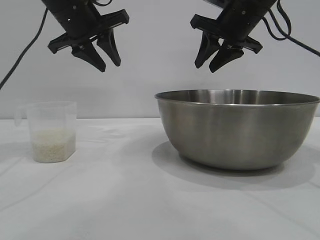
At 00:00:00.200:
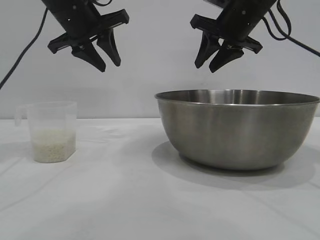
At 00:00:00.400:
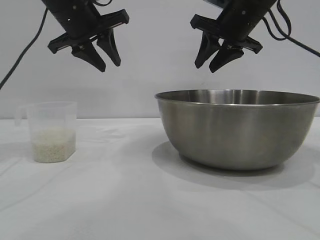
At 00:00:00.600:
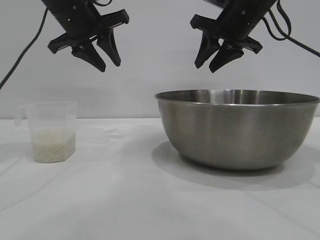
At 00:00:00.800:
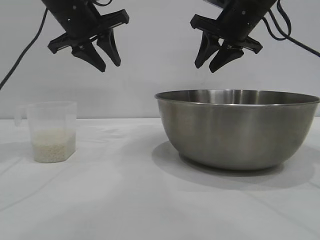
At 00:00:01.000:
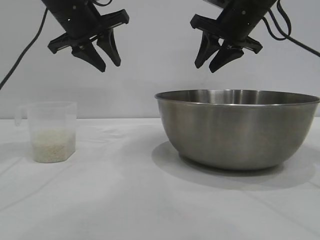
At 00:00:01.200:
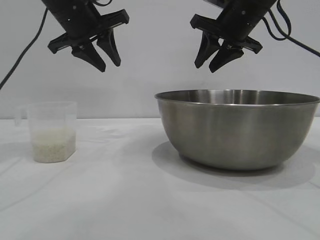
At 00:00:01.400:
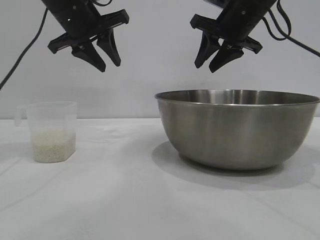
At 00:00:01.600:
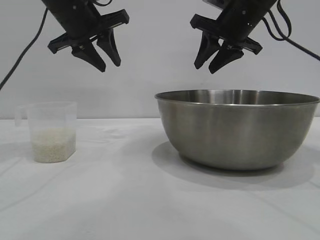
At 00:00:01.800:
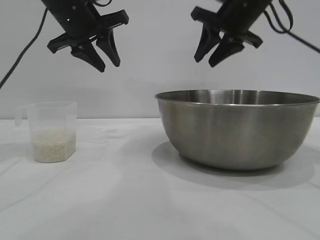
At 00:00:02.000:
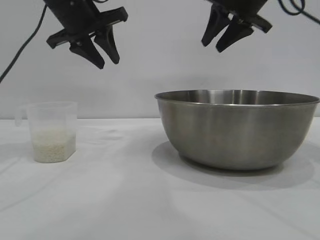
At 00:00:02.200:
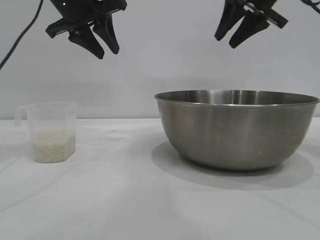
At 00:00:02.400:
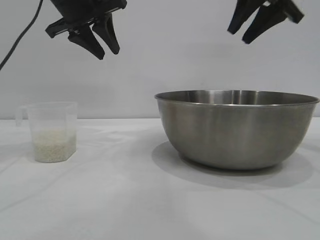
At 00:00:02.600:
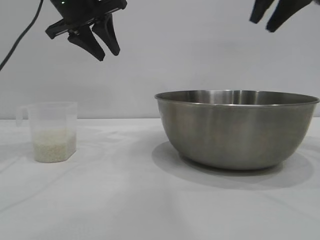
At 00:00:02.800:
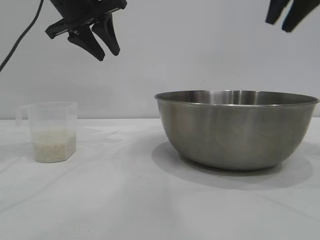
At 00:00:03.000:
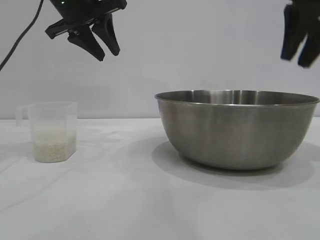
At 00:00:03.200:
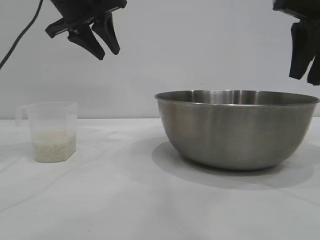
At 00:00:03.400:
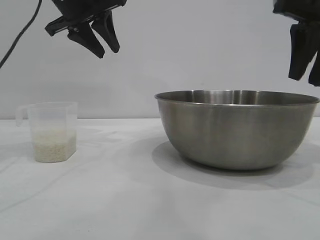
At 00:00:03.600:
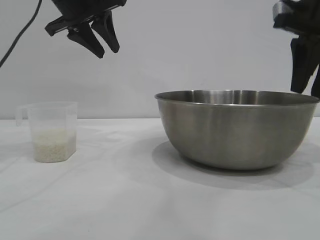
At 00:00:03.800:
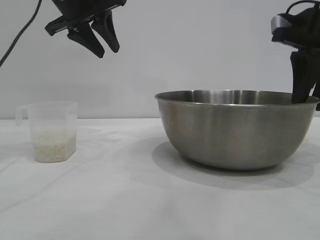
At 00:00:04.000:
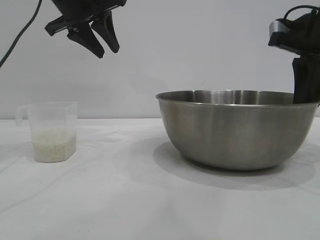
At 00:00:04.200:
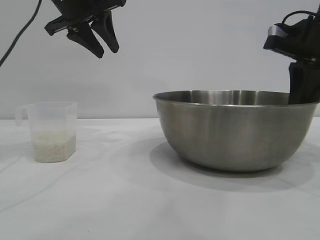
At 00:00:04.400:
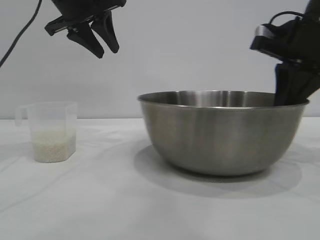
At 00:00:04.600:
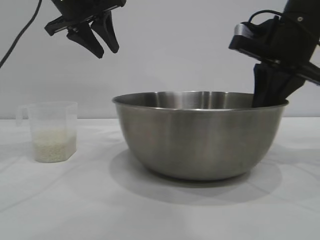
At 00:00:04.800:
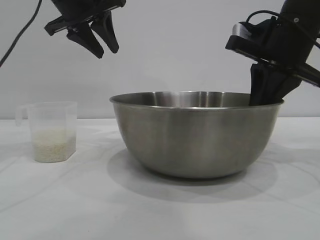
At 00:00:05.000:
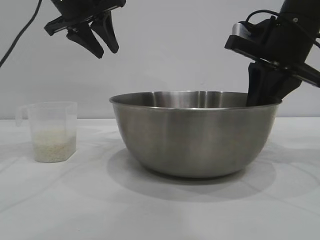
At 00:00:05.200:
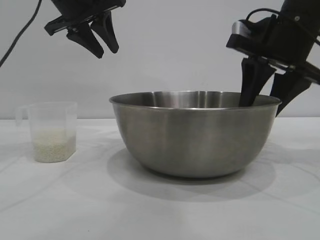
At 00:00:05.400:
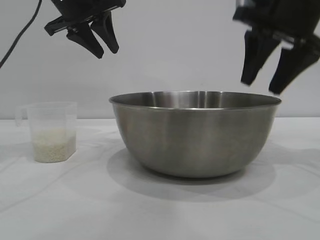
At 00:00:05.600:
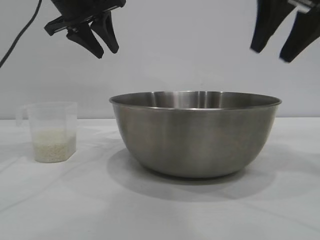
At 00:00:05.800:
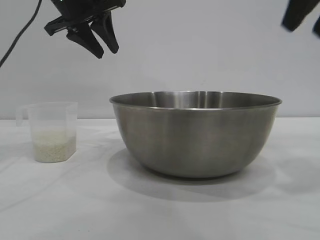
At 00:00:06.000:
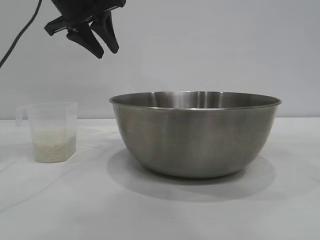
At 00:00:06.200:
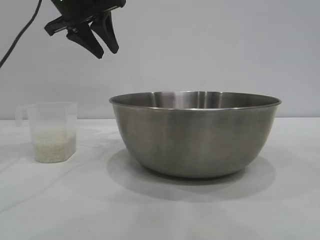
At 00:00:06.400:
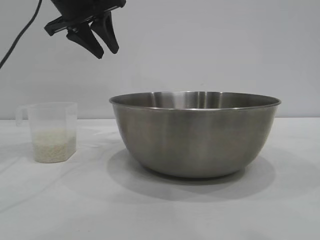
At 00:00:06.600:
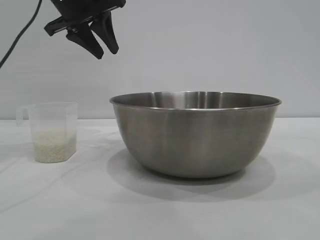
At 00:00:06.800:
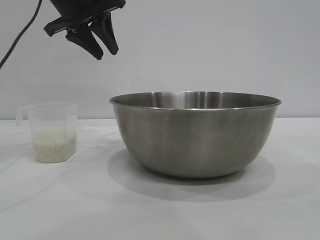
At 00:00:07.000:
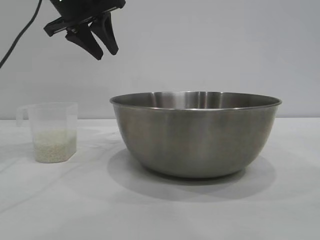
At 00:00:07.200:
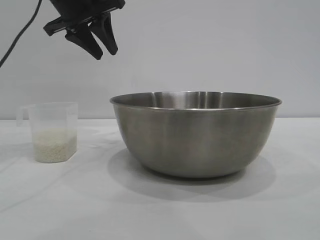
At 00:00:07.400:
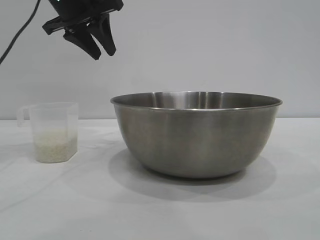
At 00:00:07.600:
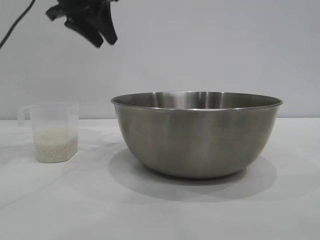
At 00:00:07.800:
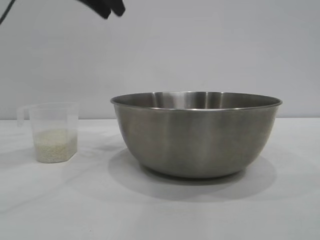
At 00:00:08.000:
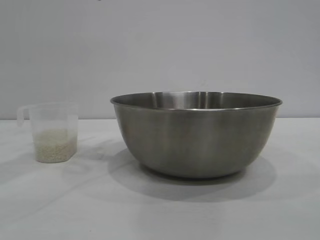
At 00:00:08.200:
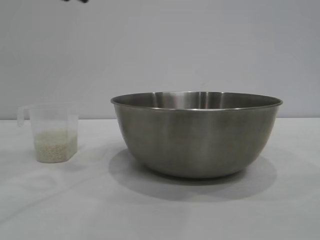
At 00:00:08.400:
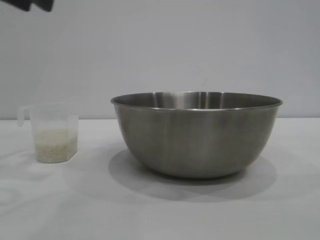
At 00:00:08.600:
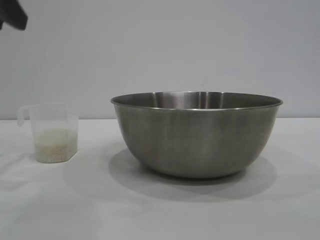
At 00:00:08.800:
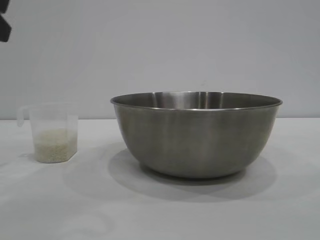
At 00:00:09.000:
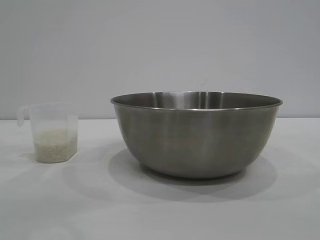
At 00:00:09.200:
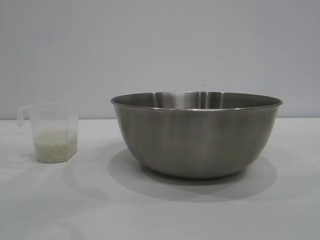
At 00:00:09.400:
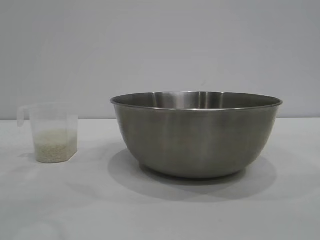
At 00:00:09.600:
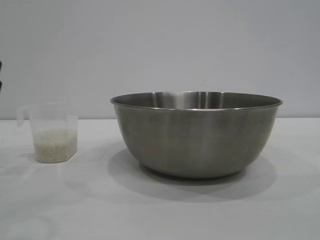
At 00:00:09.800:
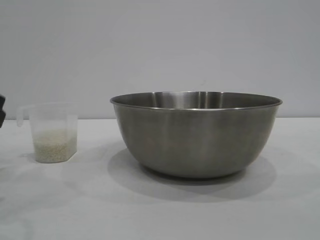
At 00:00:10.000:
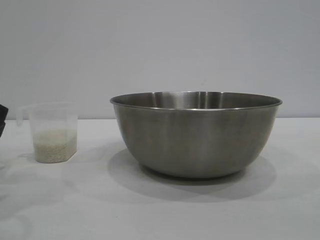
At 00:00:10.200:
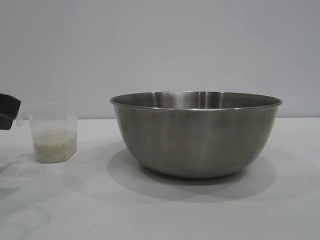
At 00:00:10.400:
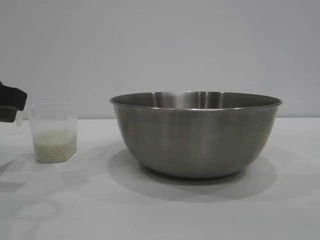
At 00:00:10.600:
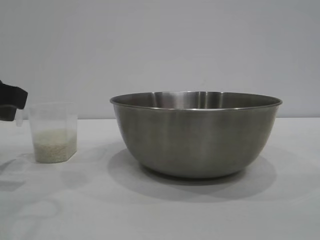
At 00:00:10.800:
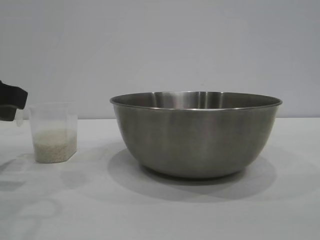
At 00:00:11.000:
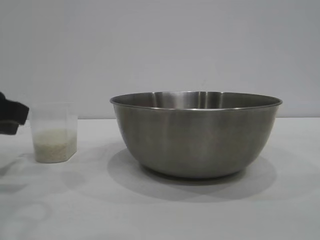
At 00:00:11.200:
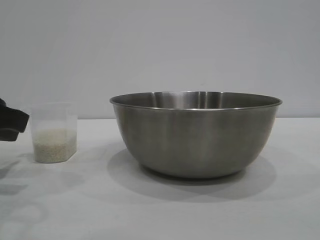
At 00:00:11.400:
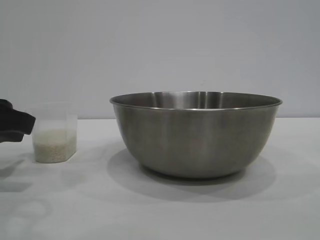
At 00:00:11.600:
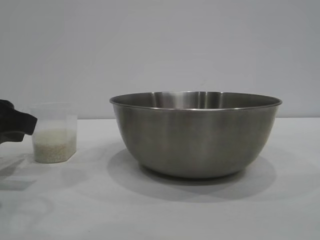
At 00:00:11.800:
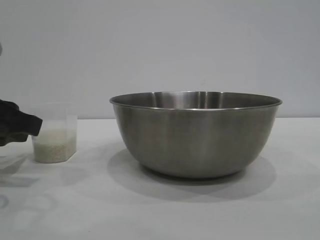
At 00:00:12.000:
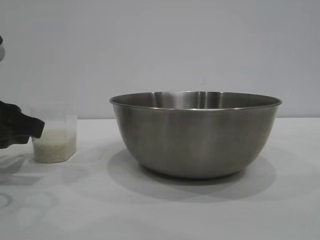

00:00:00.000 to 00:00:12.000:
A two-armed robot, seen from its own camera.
Task of the whole recording: the right gripper grasp the rice container and place it in the center of the table, the left gripper grasp the rice scoop and pour the rice into the rice container.
Step, 00:00:00.000 to 00:00:05.400: Move the bowl to the center of view with the right gripper.

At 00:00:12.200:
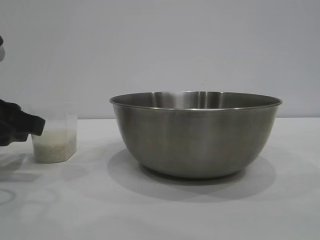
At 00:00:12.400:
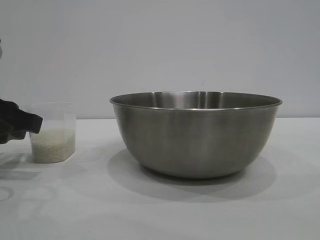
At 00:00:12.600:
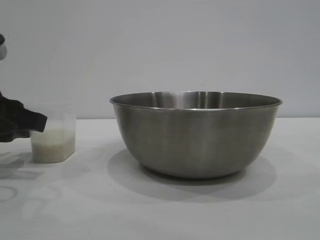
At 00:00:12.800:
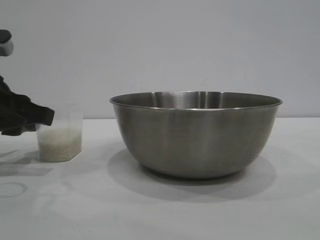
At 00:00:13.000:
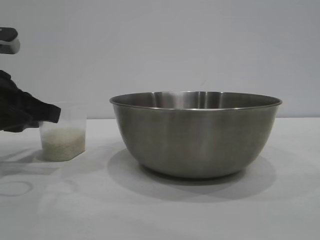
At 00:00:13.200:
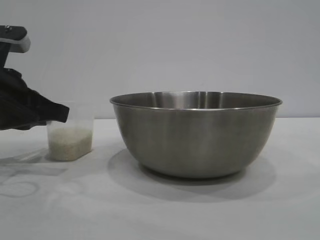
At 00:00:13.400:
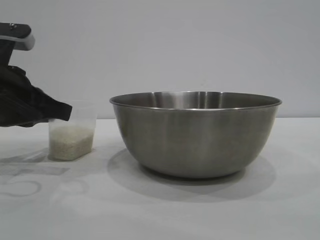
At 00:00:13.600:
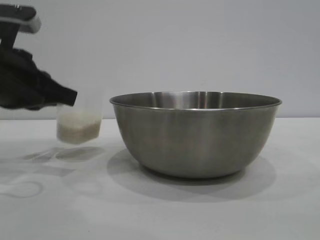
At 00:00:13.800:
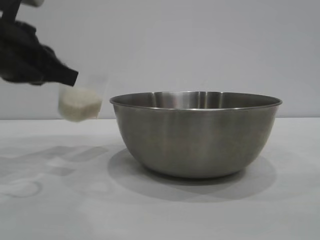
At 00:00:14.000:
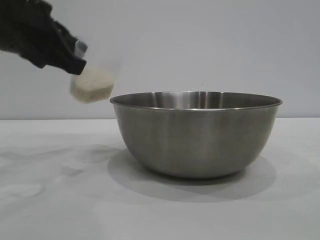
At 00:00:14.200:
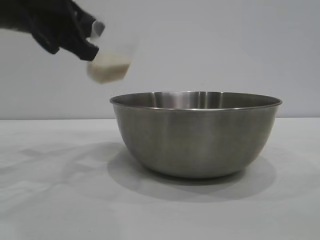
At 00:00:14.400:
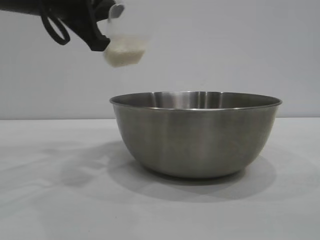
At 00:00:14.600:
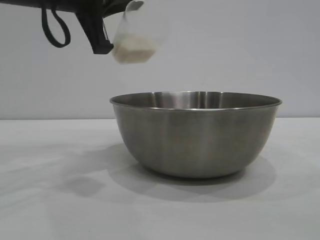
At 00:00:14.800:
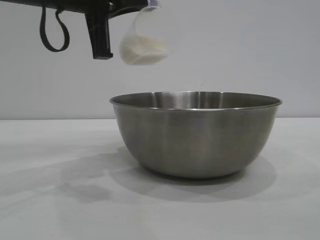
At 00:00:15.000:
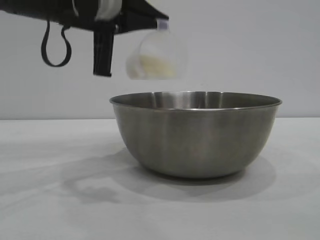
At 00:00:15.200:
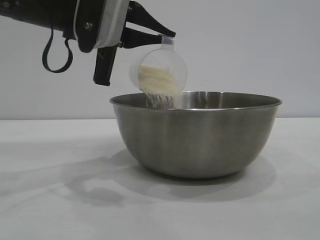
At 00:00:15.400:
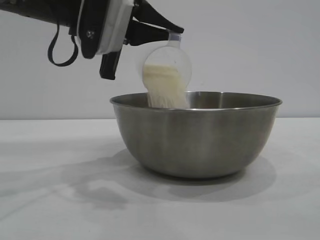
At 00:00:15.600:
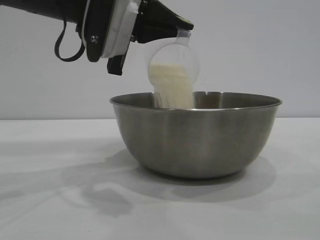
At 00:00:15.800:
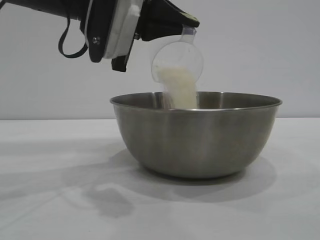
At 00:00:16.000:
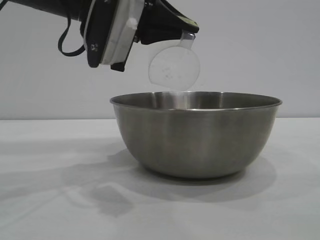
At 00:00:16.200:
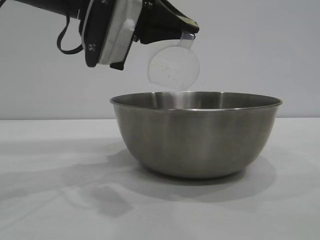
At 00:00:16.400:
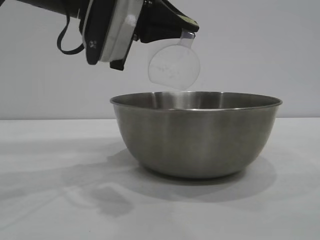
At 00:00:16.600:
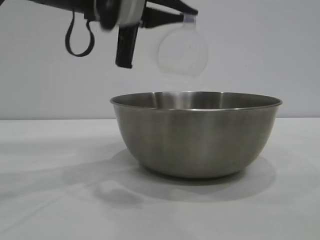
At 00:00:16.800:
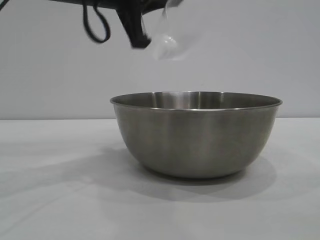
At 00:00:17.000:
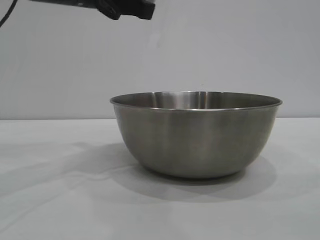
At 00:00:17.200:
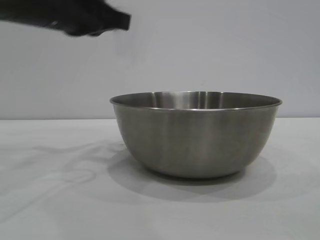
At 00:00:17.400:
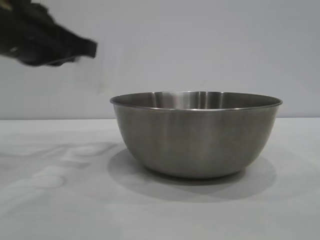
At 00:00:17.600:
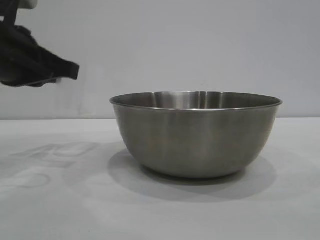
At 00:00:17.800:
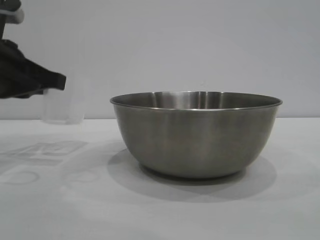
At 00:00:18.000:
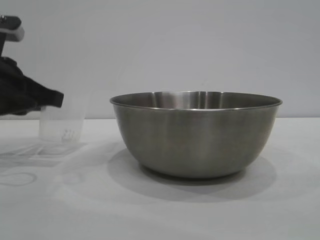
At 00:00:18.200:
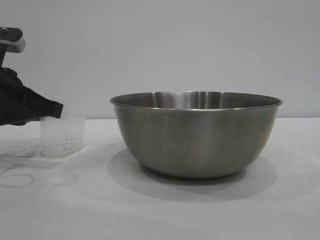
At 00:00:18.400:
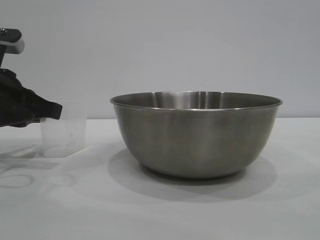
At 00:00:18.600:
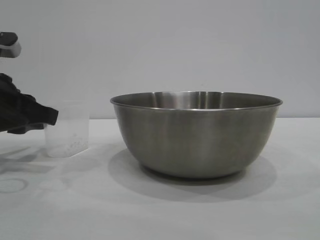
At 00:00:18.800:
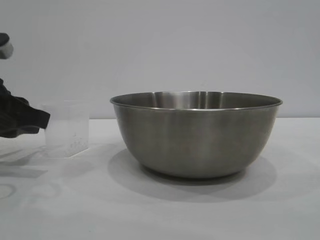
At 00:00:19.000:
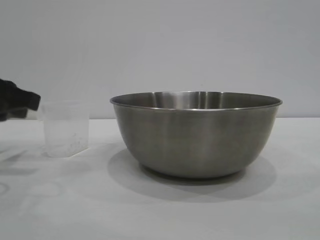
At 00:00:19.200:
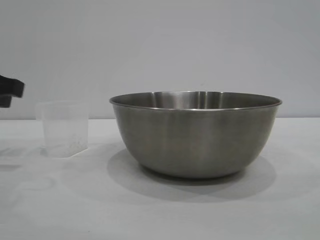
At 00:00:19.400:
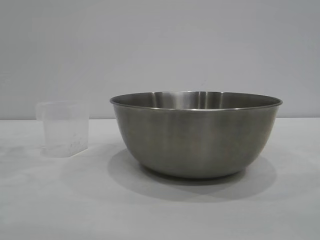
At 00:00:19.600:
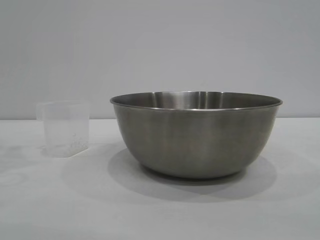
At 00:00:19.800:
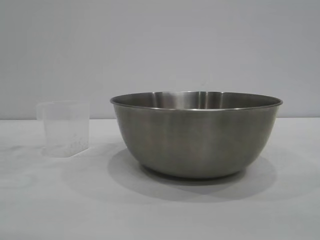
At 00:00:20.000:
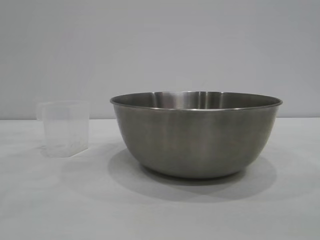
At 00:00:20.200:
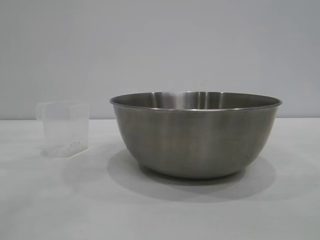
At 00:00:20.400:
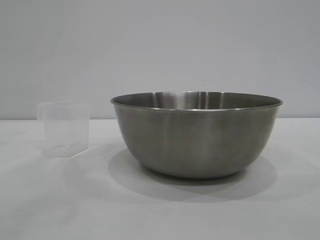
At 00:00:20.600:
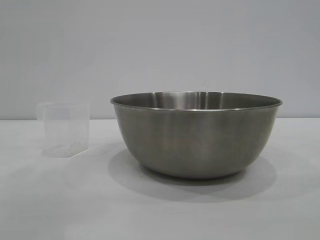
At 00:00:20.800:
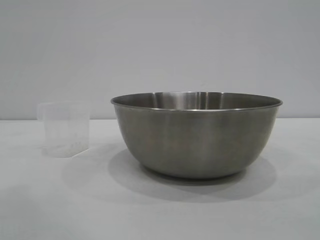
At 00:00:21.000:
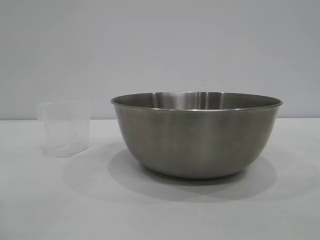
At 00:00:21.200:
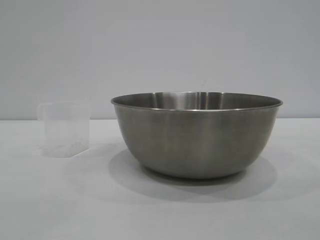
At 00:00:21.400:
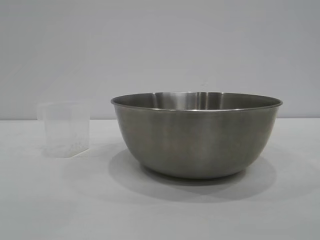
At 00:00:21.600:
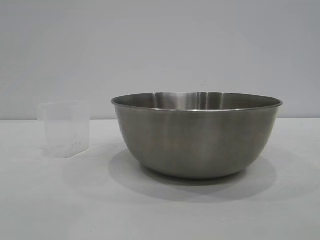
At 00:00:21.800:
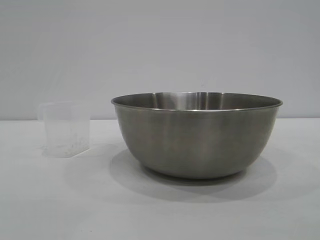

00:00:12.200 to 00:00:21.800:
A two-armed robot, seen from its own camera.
Task of the whole recording: the right gripper grasp the rice container and place it in the center of the table, the left gripper grasp the rice scoop and pour the rice into the rice container.
Step, 00:00:13.800 to 00:00:16.800: Pour the rice from the cup into the bowl with the left gripper.
Step, 00:00:17.000 to 00:00:19.000: Place the cup on the table with the left gripper.
